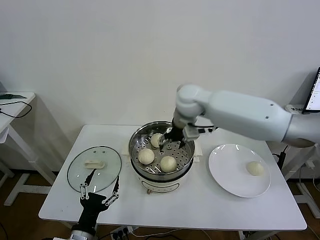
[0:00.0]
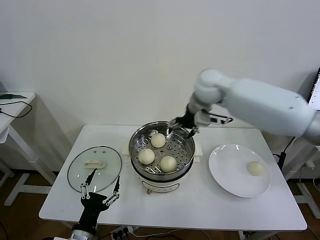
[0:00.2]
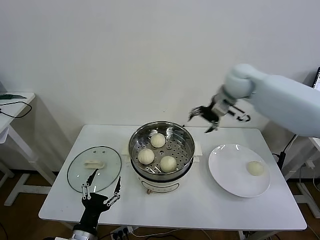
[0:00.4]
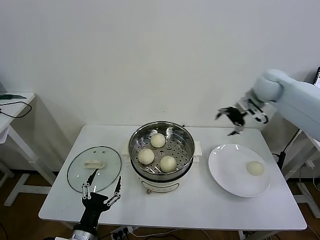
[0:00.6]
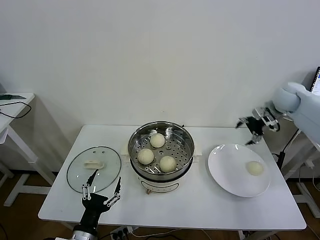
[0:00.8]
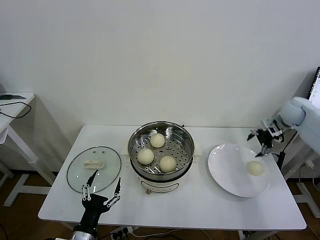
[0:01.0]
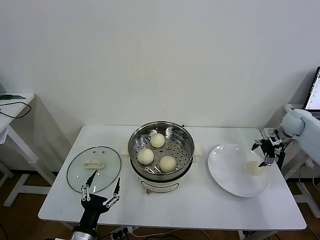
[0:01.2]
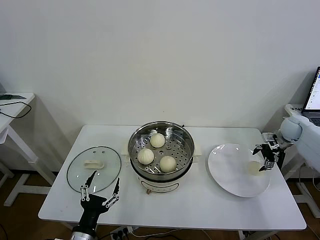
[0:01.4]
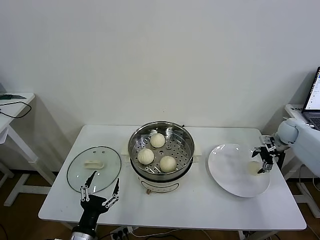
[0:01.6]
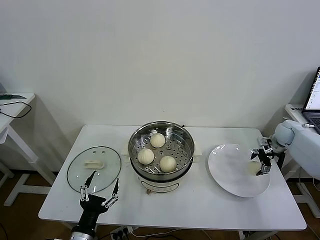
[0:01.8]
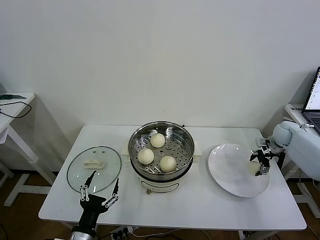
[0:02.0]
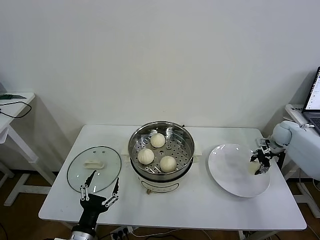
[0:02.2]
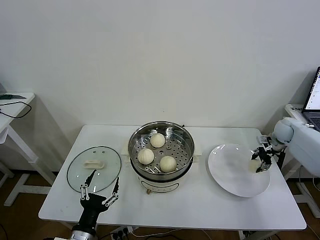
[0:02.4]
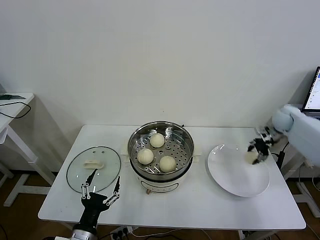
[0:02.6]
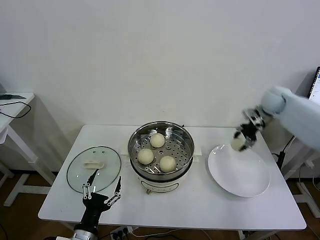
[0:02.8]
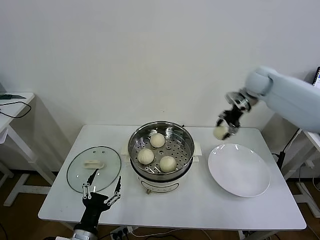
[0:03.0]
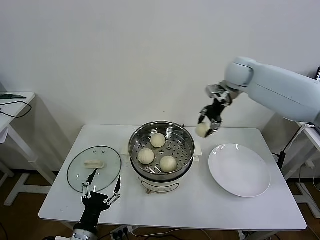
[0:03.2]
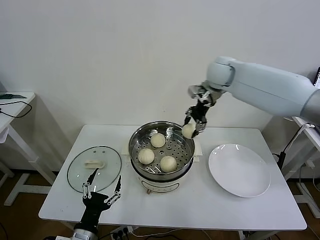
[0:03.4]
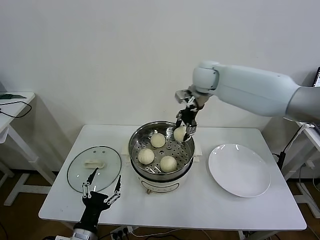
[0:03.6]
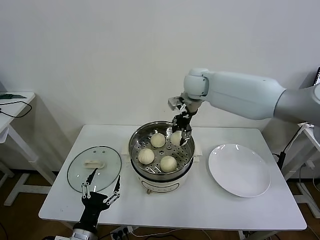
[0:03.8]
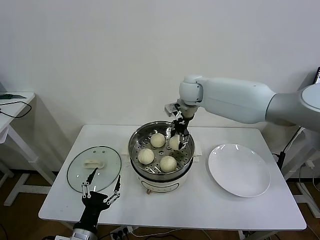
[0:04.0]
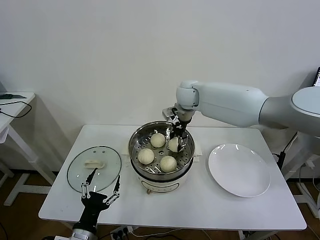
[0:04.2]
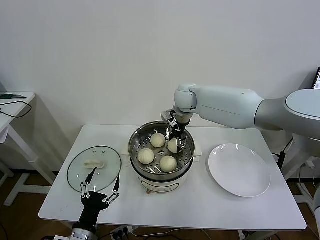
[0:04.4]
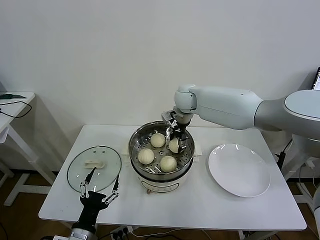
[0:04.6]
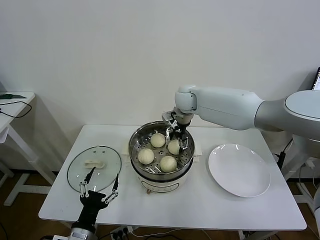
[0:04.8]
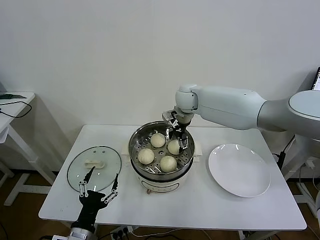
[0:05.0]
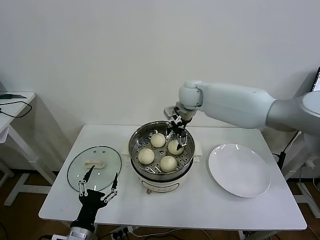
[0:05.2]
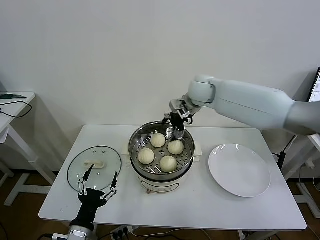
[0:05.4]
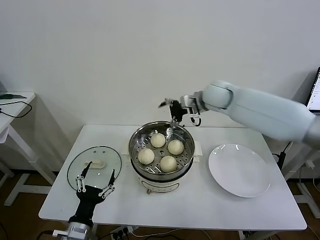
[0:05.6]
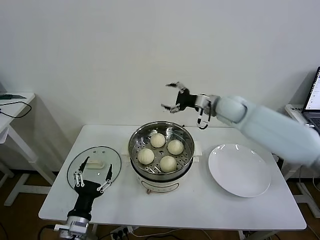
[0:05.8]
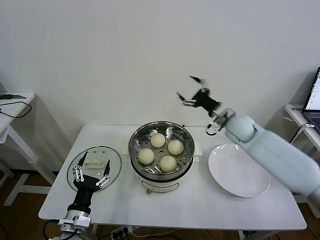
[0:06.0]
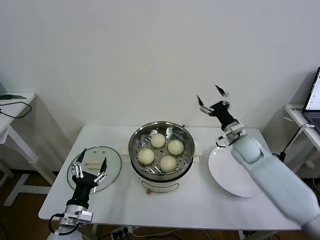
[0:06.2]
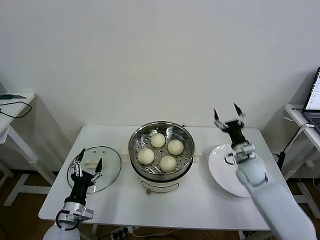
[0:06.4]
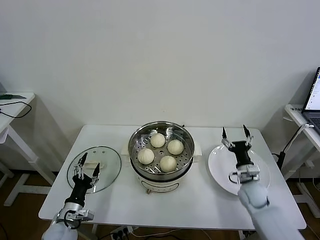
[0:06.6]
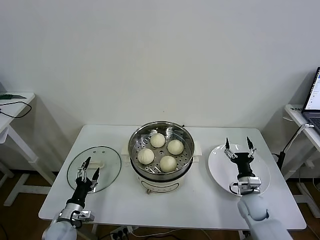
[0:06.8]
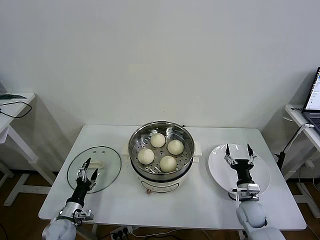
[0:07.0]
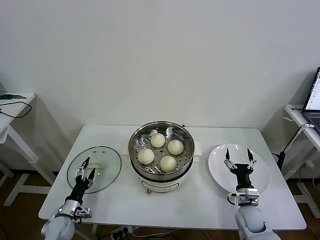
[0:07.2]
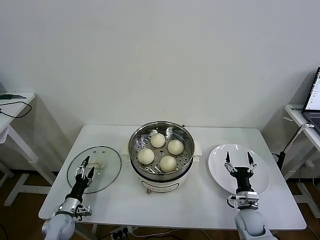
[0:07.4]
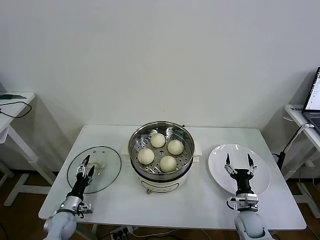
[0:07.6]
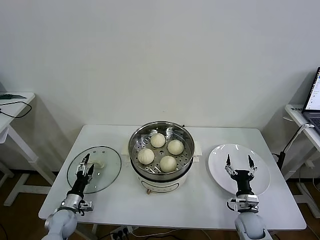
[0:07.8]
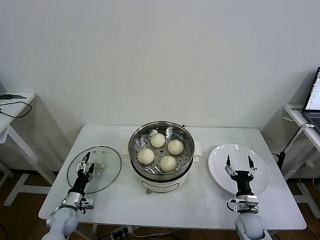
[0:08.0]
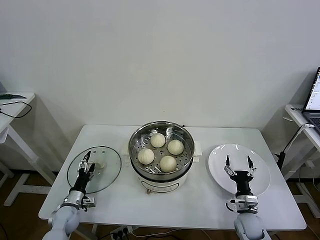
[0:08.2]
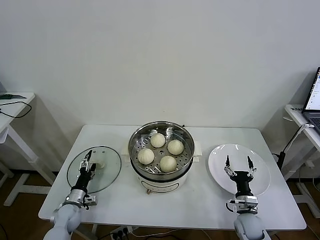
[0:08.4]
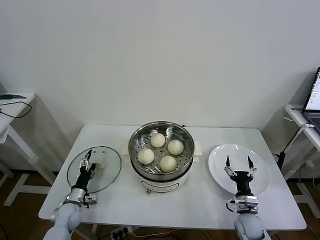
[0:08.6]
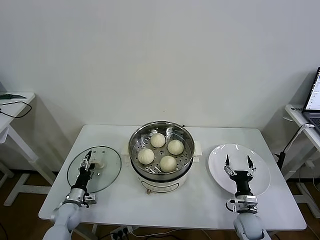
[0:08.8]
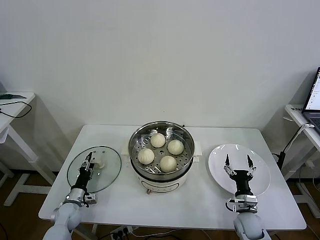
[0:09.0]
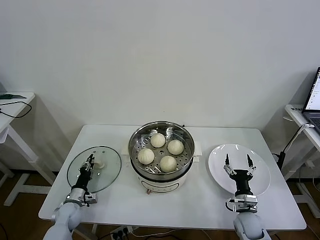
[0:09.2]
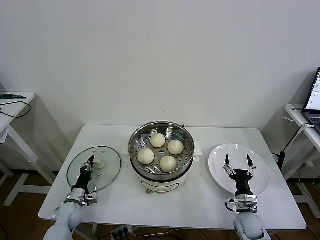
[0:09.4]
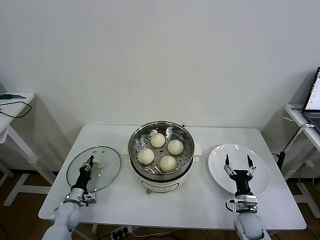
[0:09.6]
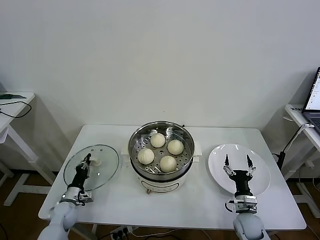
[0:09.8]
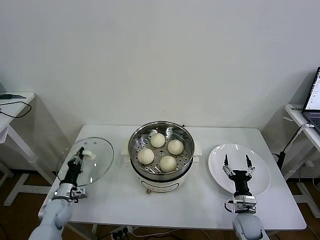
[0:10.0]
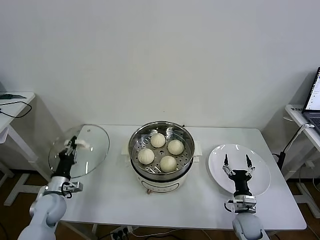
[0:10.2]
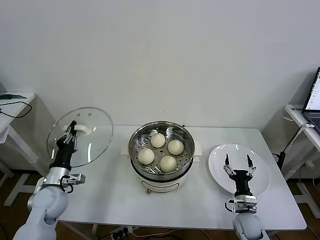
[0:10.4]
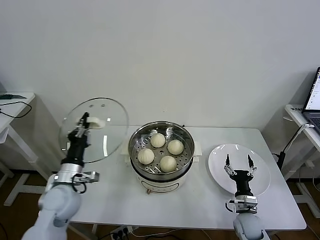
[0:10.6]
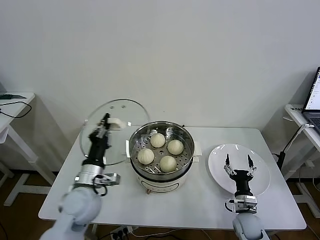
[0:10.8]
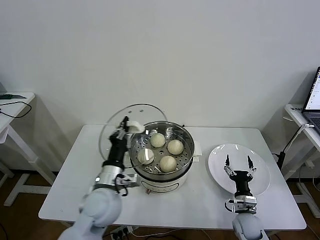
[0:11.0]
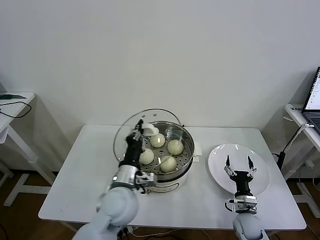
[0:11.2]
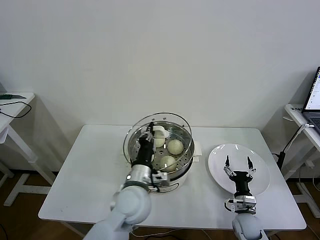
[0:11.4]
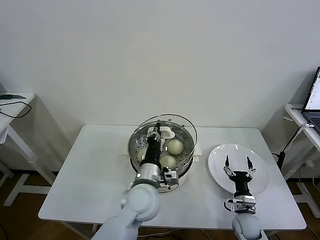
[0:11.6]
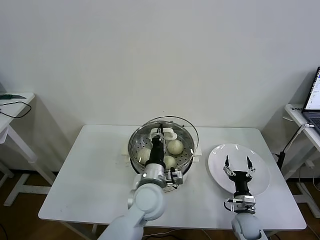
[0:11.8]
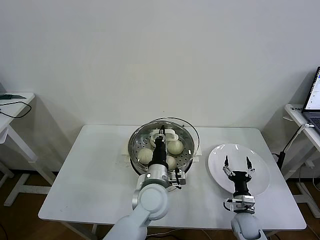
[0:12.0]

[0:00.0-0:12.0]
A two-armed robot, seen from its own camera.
Task of the whole recording: take steamed baozi put them in steamer then cover it.
Step, 0:00.0 to 0:02.2: Grasp the baozi in the plate with right gripper.
Step, 0:02.4 to 0:04.8: Place the baozi on the steamer with right gripper.
Step, 0:05.0 to 0:09.4: Grasp the pot lid with left gripper.
0:00.0 to 0:01.6: The right gripper moves to the right and downward, some 40 cm.
0:01.6 to 0:03.0: The right gripper heads to the left and upward, covering approximately 30 cm, and closes up.
0:03.0 to 0:04.4: The right gripper is displaced to the left by approximately 20 cm.
0:04.4 to 0:06.0: The right gripper goes some 25 cm to the right, backward and downward, and opens. The left gripper goes about 5 cm forward.
0:06.0 to 0:07.6: The right gripper is displaced downward and backward by some 35 cm, while the left gripper heads downward, to the left and forward, covering approximately 20 cm.
0:07.6 to 0:09.0: The left gripper closes.
0:09.0 to 0:10.4: The left gripper moves upward, some 15 cm, and closes.
0:10.4 to 0:12.0: The left gripper moves to the right, some 35 cm.

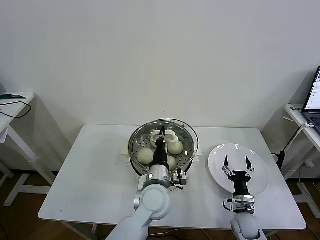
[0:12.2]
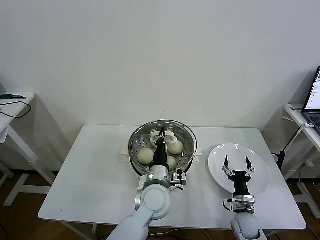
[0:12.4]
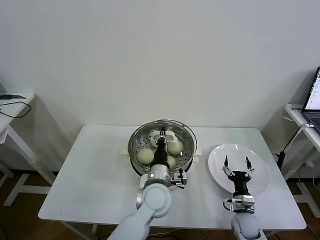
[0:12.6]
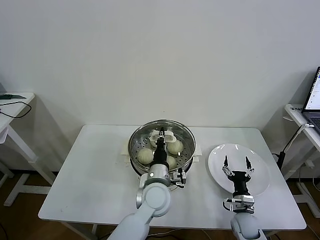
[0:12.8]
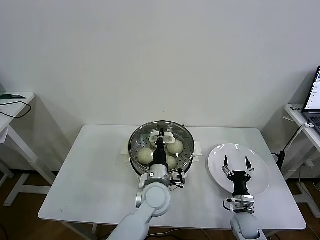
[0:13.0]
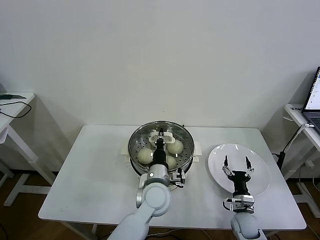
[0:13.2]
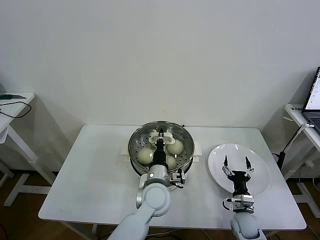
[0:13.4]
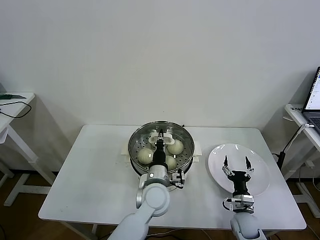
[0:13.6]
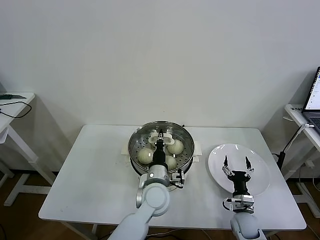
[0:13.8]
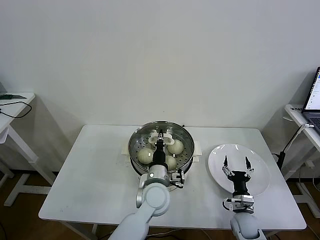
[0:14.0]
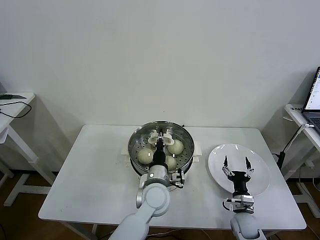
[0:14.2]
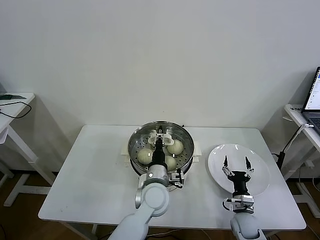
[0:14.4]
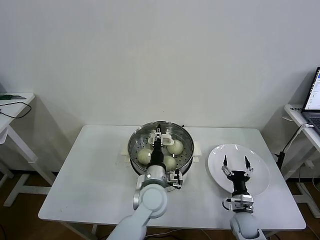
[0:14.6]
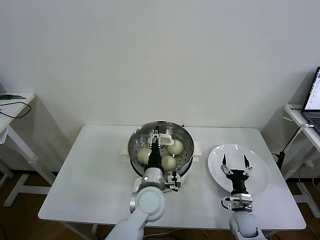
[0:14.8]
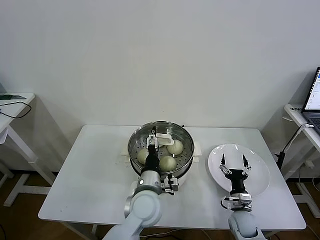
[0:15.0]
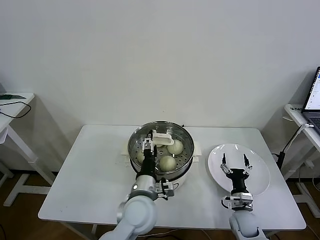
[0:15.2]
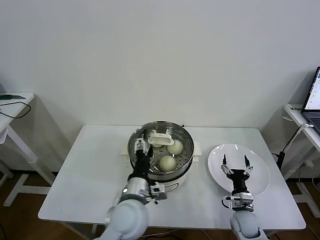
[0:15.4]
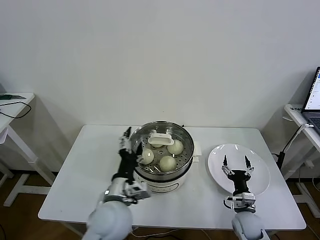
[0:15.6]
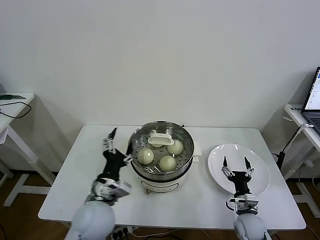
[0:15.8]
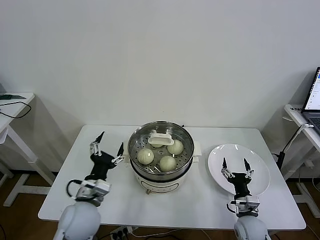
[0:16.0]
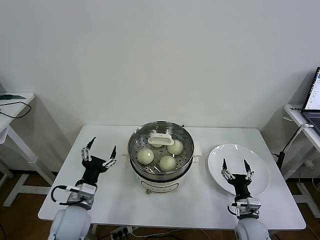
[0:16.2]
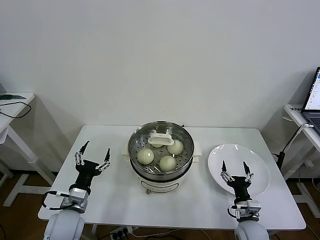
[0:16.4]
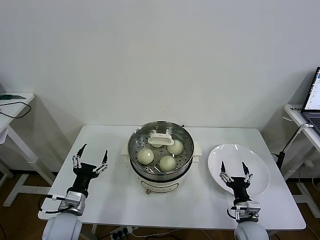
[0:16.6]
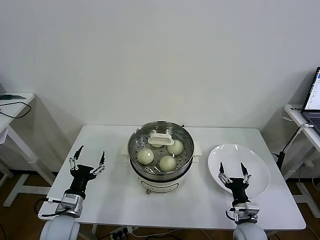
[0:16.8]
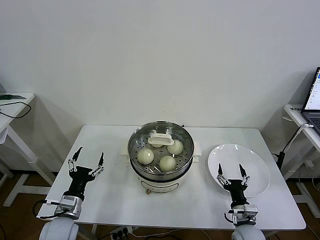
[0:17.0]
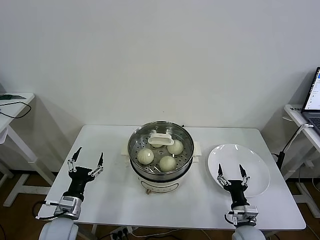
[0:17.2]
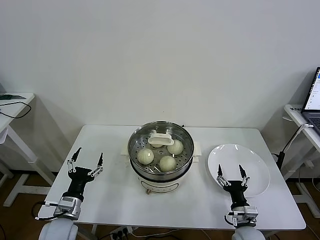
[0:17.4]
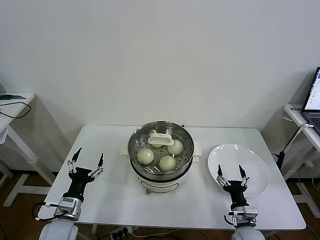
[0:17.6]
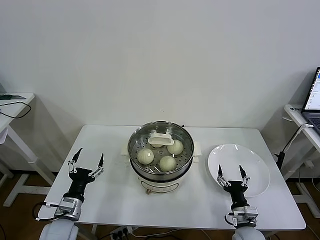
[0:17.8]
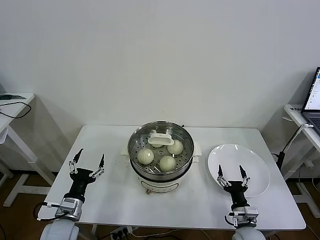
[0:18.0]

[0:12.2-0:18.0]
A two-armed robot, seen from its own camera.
Task of the whole recording: take steamed baozi put them in steamer then cover it.
0:12.2 to 0:13.6: The grippers stay close to where they were, moving slightly.
0:13.6 to 0:15.0: The left gripper opens its fingers.
0:15.0 to 0:16.6: The right gripper moves about 5 cm. Meanwhile the left gripper heads to the left, covering roughly 25 cm.
0:16.6 to 0:18.0: The grippers stay close to where they were, moving slightly.

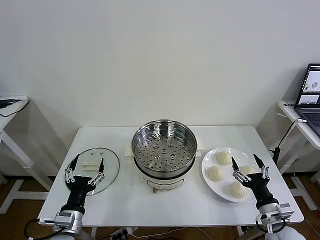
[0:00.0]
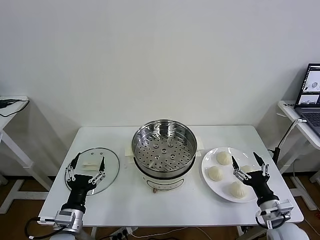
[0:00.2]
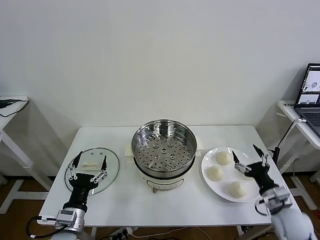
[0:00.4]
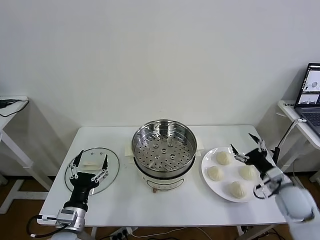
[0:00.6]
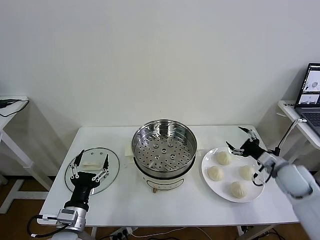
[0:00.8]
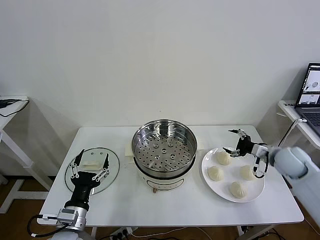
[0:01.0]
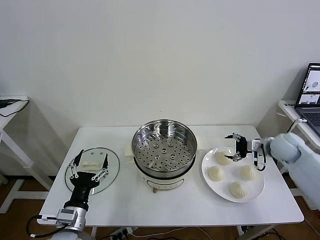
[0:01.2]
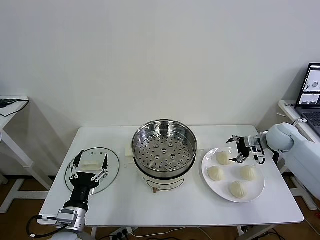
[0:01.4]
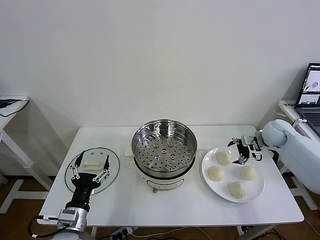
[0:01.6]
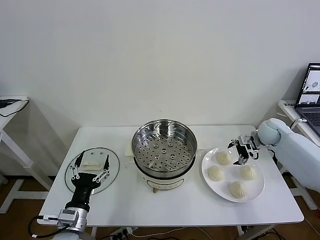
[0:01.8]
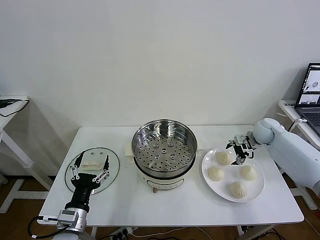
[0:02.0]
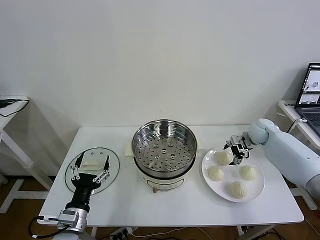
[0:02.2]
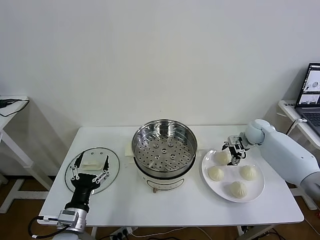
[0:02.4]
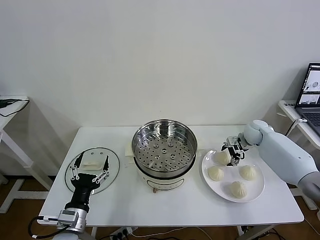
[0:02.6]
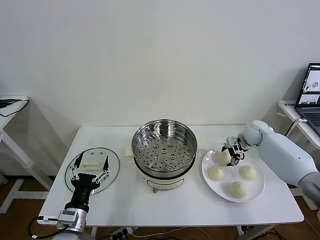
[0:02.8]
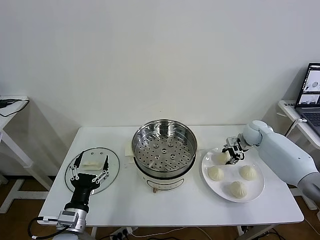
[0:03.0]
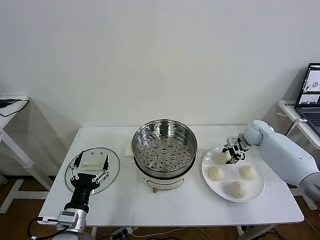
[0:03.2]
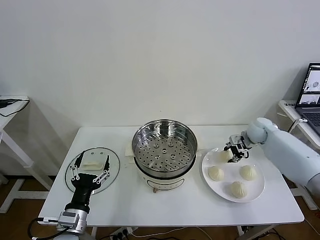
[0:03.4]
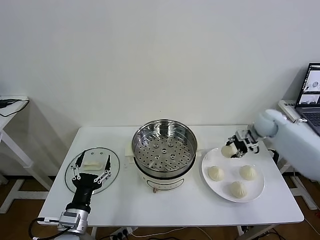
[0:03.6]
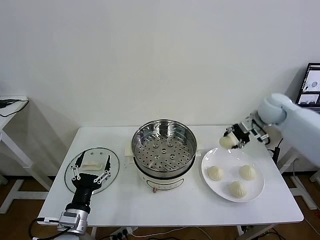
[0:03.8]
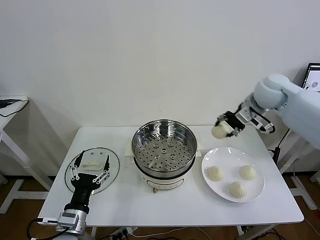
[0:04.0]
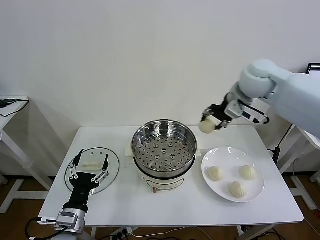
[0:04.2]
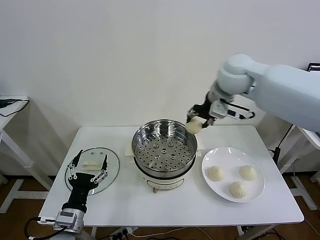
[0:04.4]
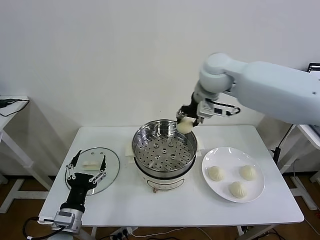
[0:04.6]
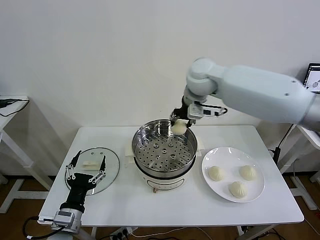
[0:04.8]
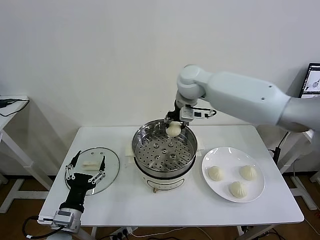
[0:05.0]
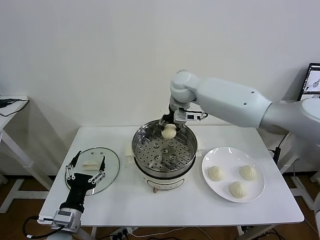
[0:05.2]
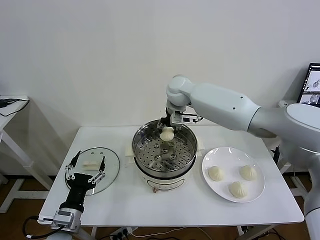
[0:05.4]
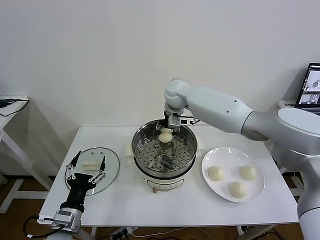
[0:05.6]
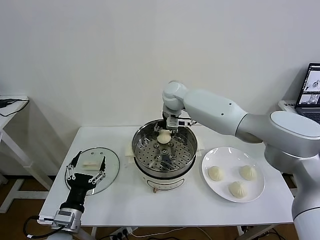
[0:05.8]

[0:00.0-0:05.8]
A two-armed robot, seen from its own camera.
Task of the whole recording: take steamed baozi put them in steamer then cover it.
Step, 0:00.0 to 0:03.0: Grasp the baozi in the plate with right gripper.
0:01.4 to 0:02.8: The right gripper moves forward and downward, some 10 cm, and closes up.
0:02.8 to 0:04.4: The right gripper is displaced upward and to the left by about 35 cm, and closes up.
0:04.4 to 0:05.8: The right gripper goes some 20 cm downward, to the left and forward.
